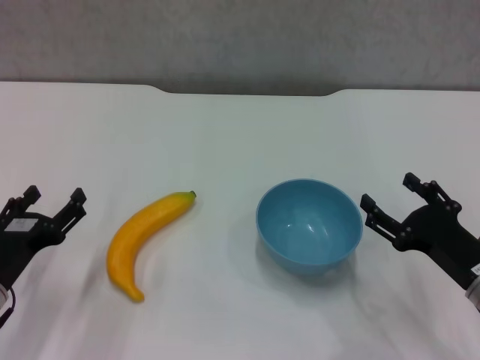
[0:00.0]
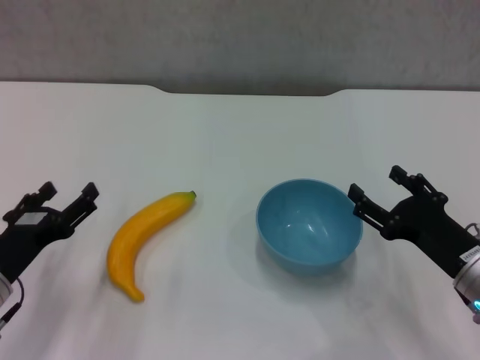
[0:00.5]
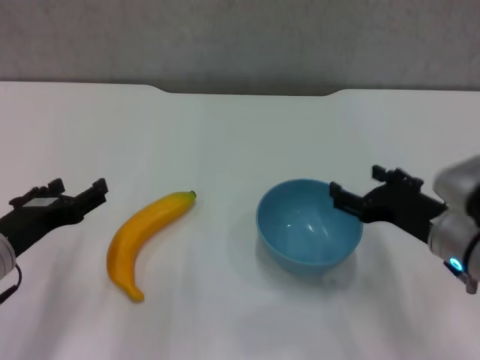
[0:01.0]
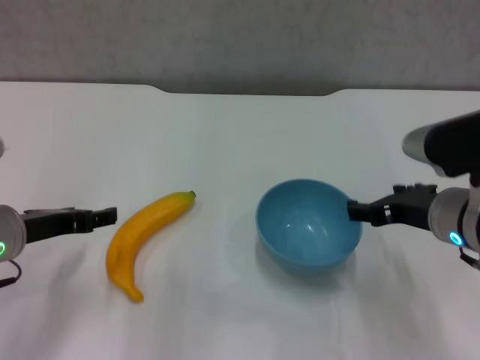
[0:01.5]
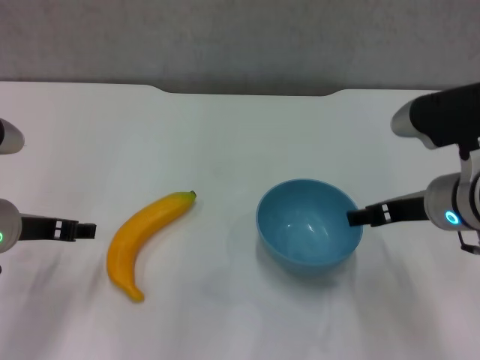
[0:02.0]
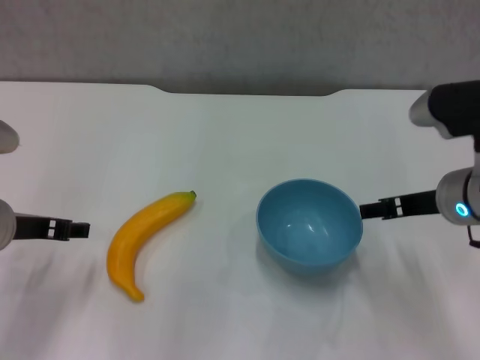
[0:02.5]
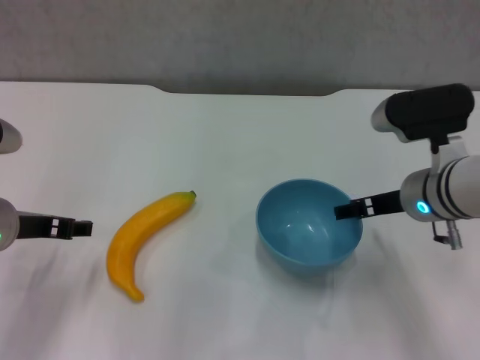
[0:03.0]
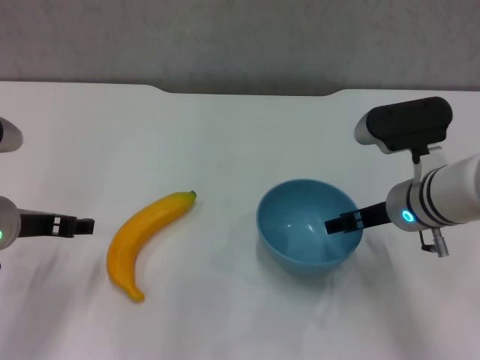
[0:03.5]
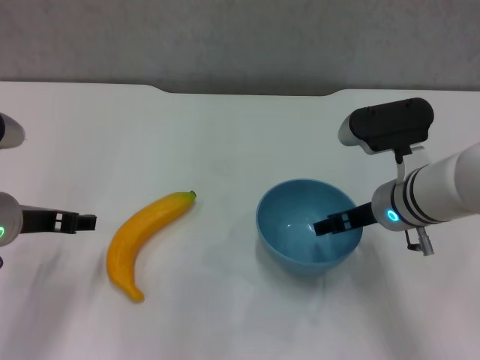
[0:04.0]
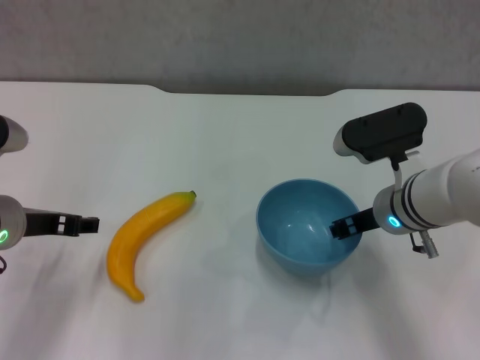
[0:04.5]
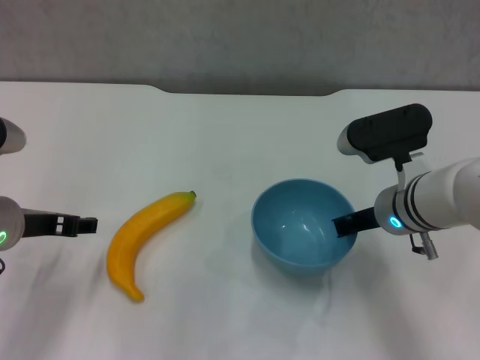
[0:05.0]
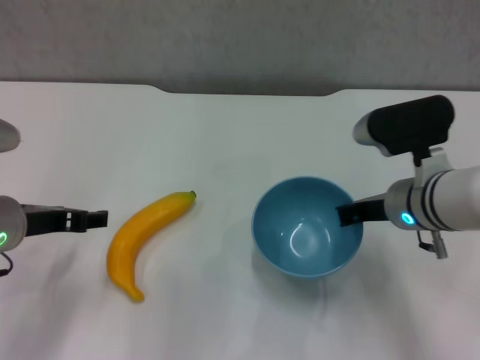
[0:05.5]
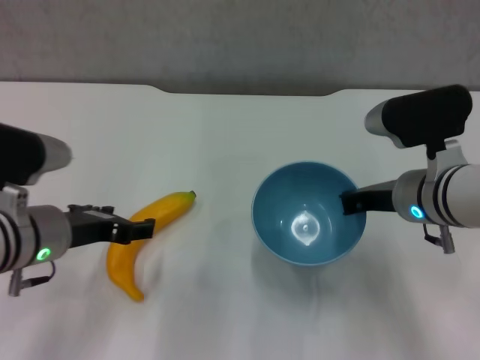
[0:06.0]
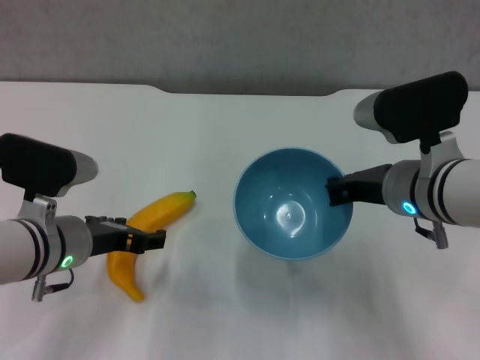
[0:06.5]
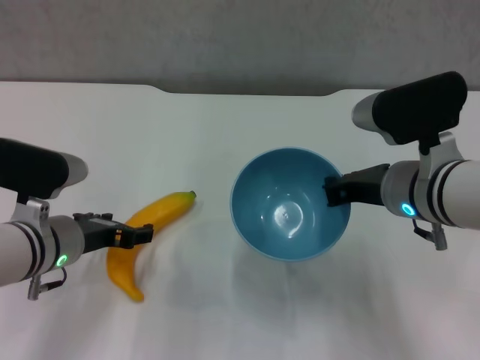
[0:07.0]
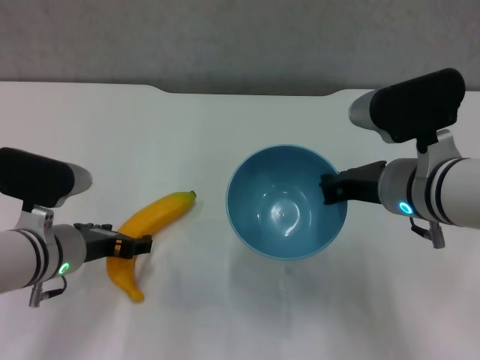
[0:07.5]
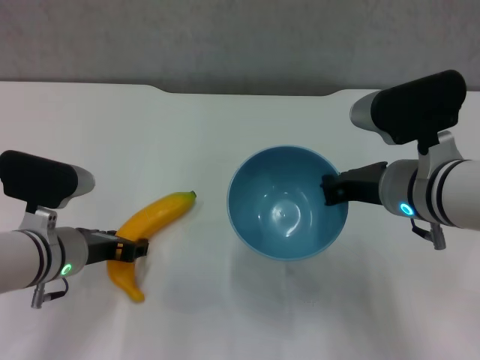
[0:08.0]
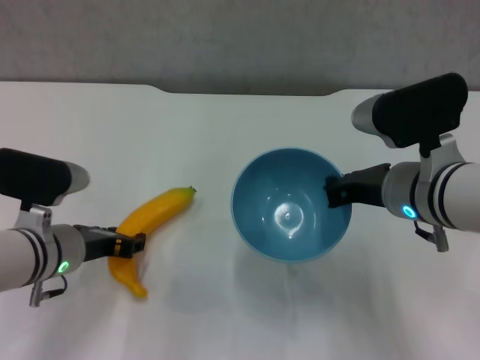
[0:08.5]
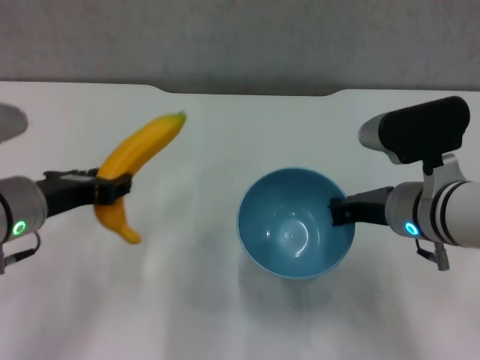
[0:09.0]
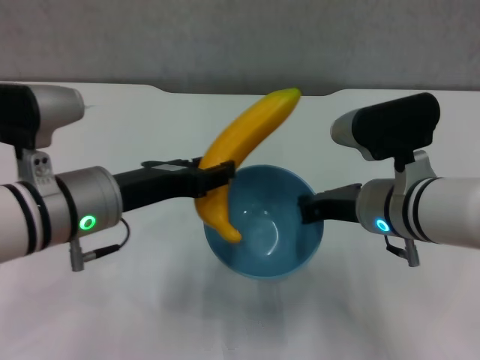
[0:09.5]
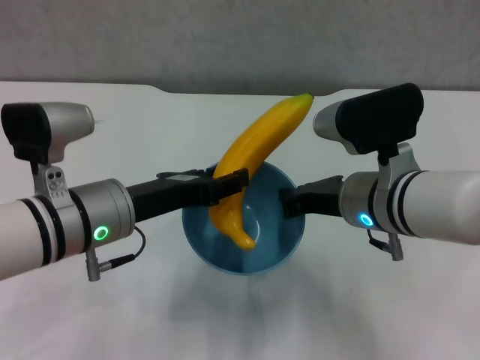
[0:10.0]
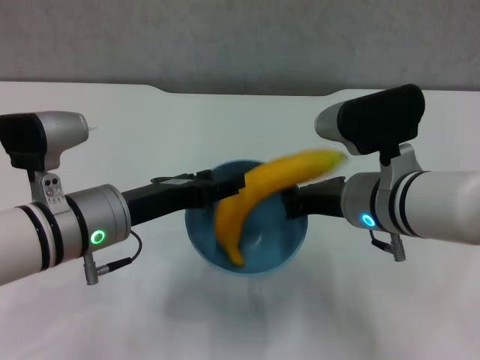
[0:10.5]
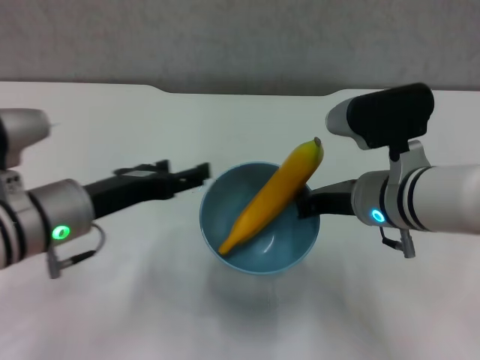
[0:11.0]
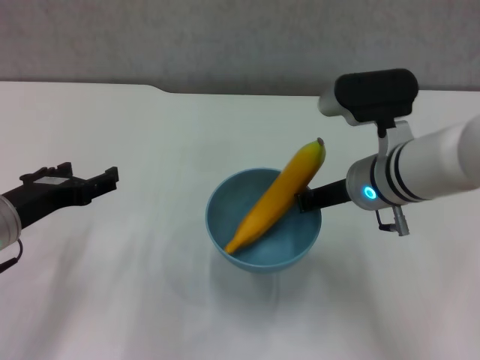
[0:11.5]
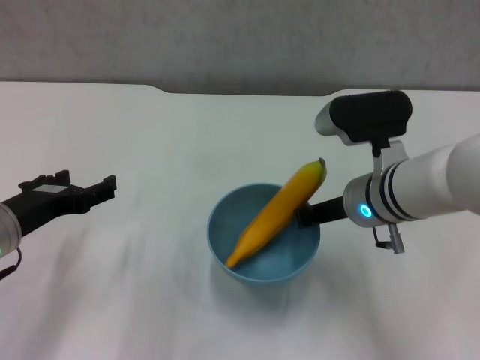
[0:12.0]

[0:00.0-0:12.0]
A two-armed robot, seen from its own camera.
Step, 0:00.0 to 0:05.0: Grasp the blue bowl with right gripper.
Step, 0:05.5 to 0:06.0: Lift the blue bowl with right gripper.
Step, 0:06.5 to 0:08.0: Grasp the banana with left gripper.
Step, 0:08.5 to 0:10.5: Place the banana in the blue bowl with left gripper.
0:00.0 to 0:02.0: The right gripper heads upward, forward and to the left, covering some 15 cm. Meanwhile the left gripper is displaced upward and forward by approximately 10 cm.
0:02.0 to 0:04.0: The right gripper changes place by roughly 5 cm.
0:04.0 to 0:06.0: The right gripper closes up.
0:06.0 to 0:08.0: The left gripper shifts roughly 5 cm downward.
0:08.0 to 0:10.0: The left gripper goes approximately 10 cm upward and to the right, and closes up.
0:10.0 to 0:12.0: The left gripper moves to the left, roughly 10 cm, and opens up.

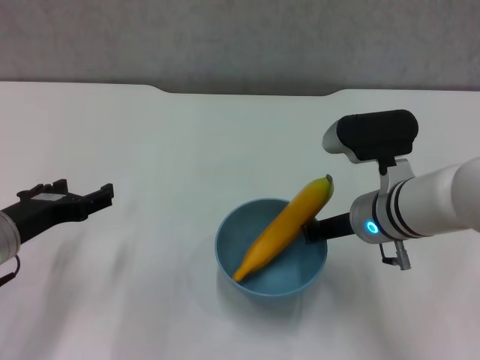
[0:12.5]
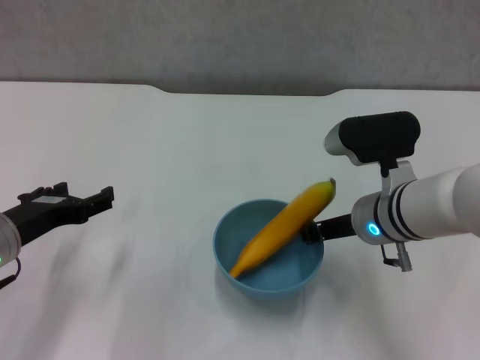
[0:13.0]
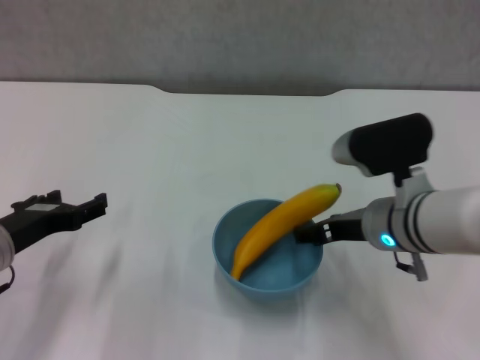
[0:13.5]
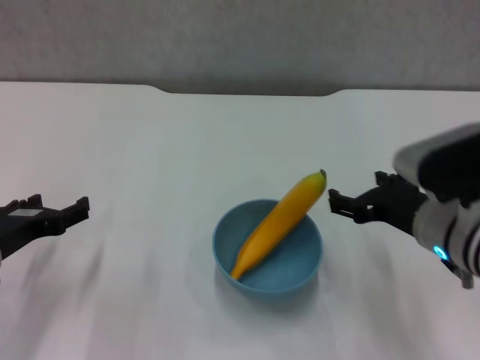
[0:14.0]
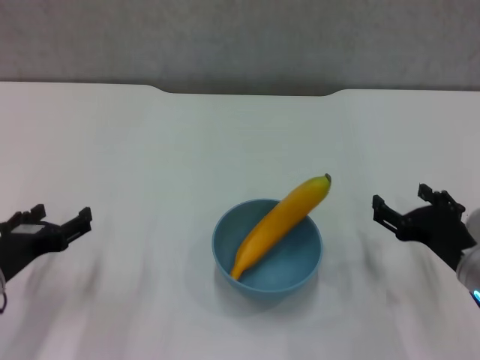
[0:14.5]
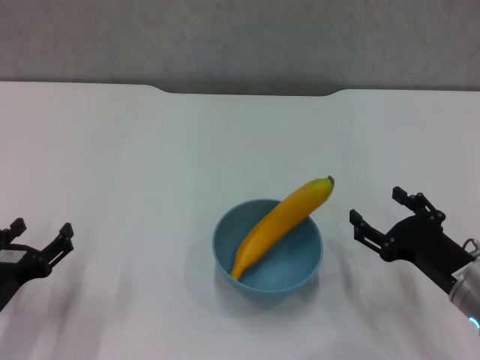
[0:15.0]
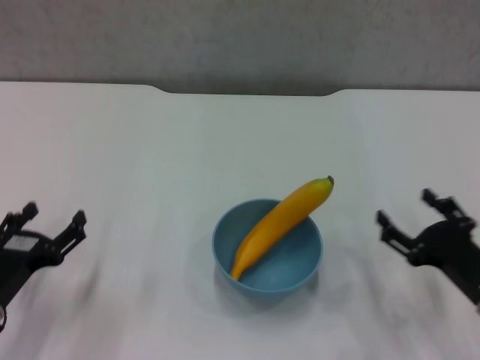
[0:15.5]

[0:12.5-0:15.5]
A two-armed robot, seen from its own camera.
0:12.5 to 0:14.0: The right gripper is displaced backward and to the right by approximately 10 cm, and opens.
0:14.0 to 0:15.5: The right gripper goes some 15 cm downward, to the right and backward; the left gripper moves downward, approximately 5 cm.

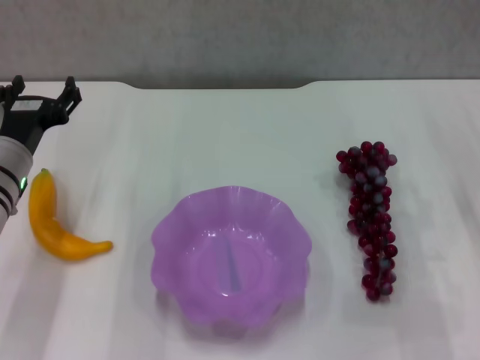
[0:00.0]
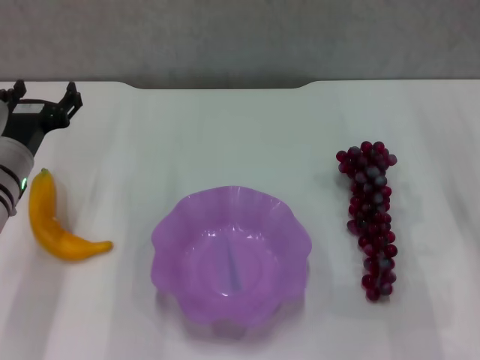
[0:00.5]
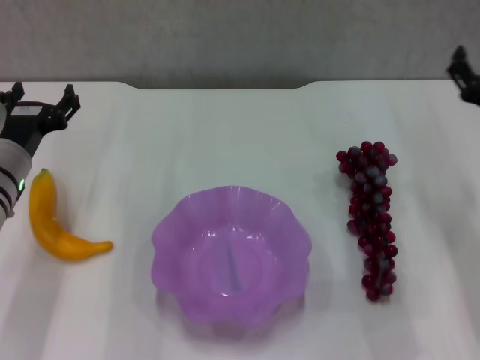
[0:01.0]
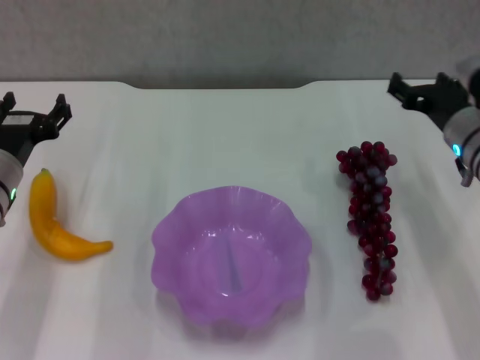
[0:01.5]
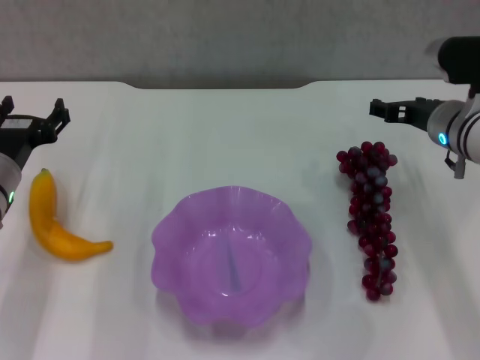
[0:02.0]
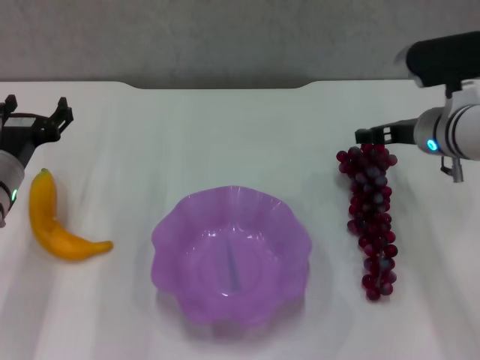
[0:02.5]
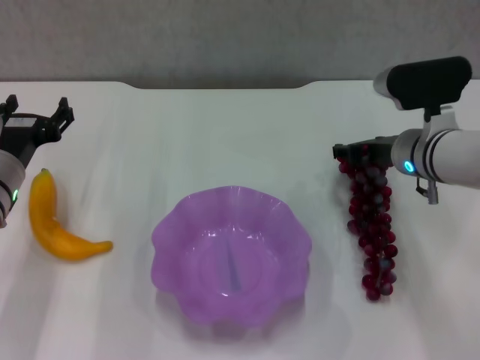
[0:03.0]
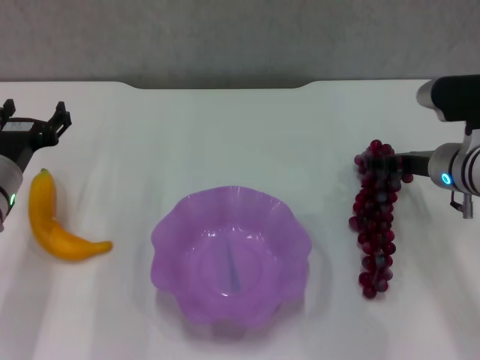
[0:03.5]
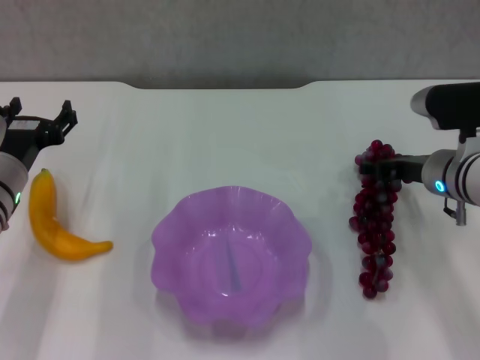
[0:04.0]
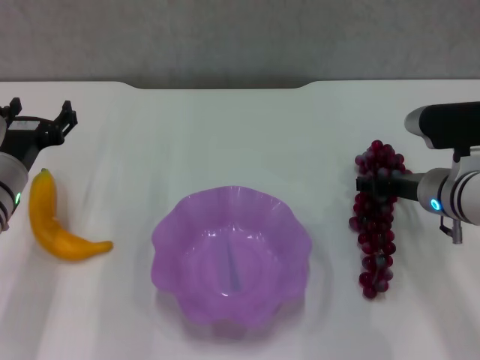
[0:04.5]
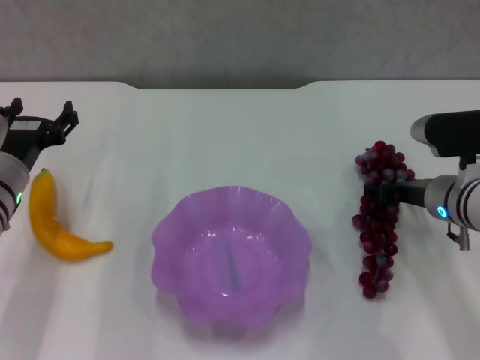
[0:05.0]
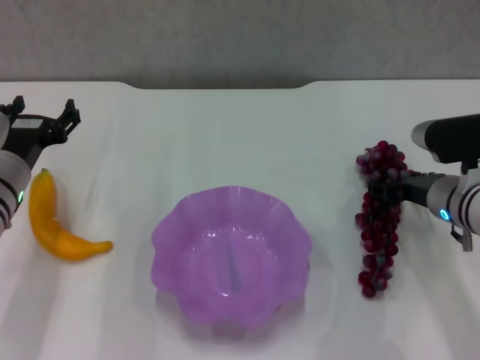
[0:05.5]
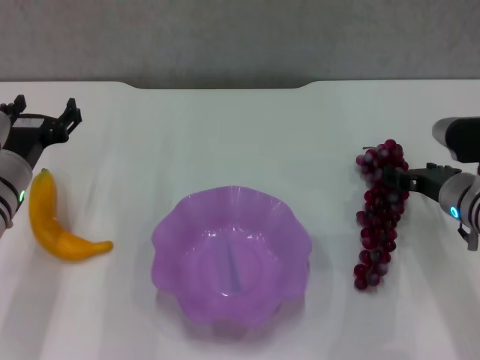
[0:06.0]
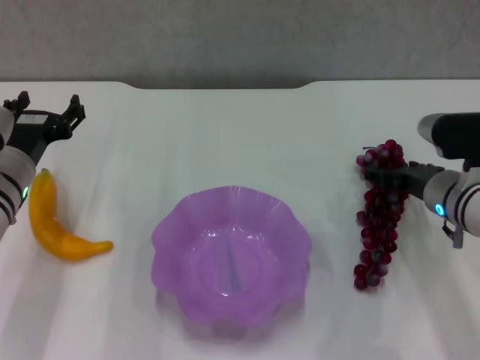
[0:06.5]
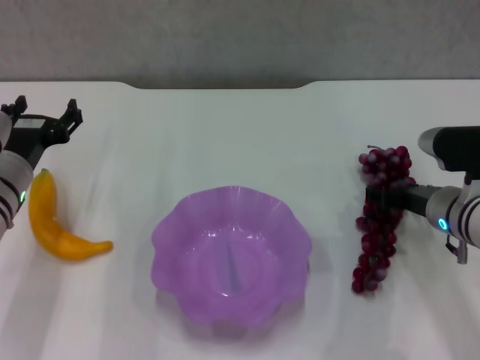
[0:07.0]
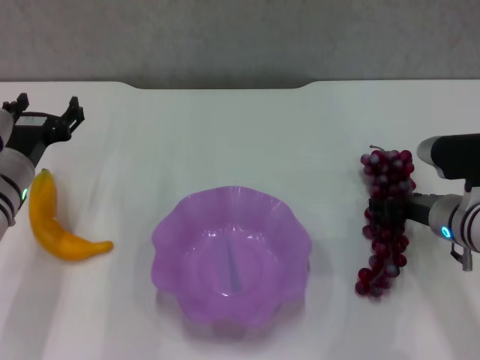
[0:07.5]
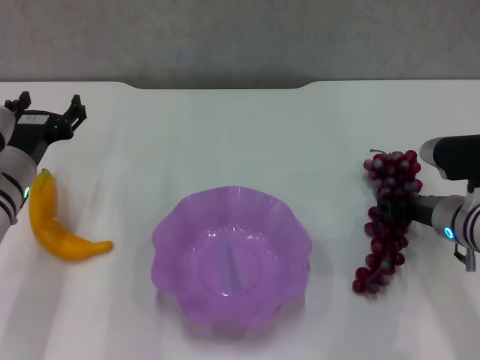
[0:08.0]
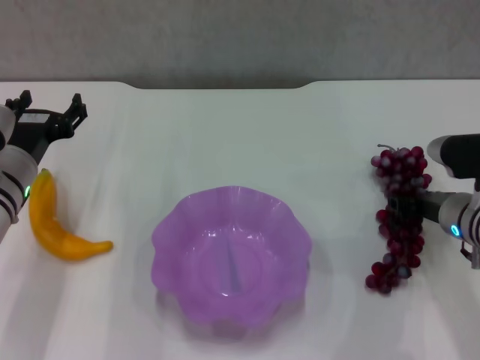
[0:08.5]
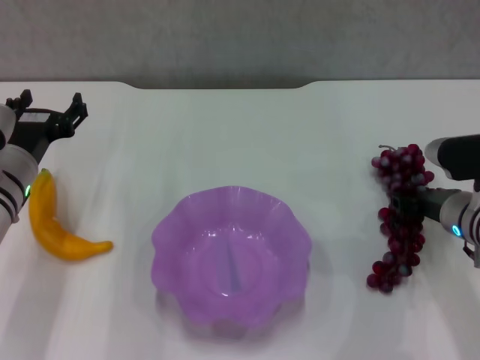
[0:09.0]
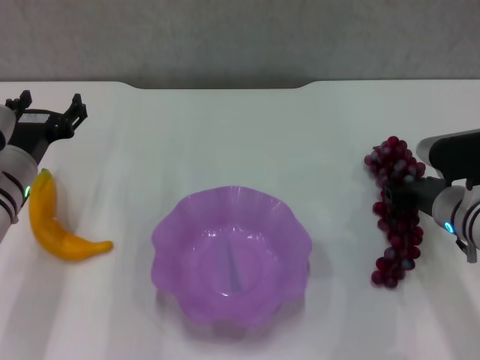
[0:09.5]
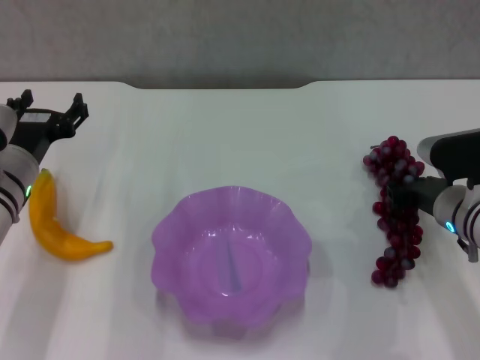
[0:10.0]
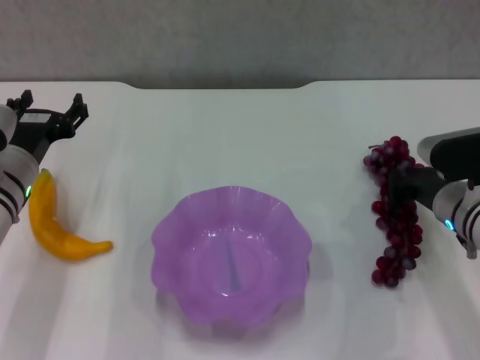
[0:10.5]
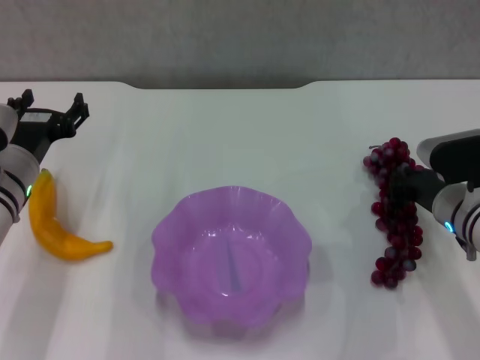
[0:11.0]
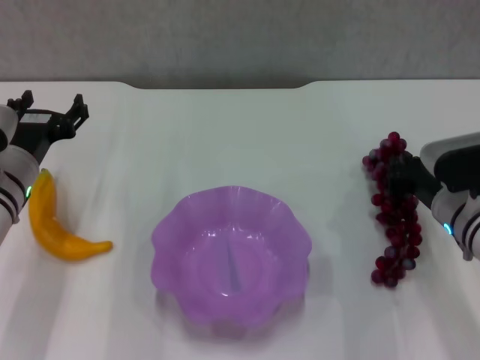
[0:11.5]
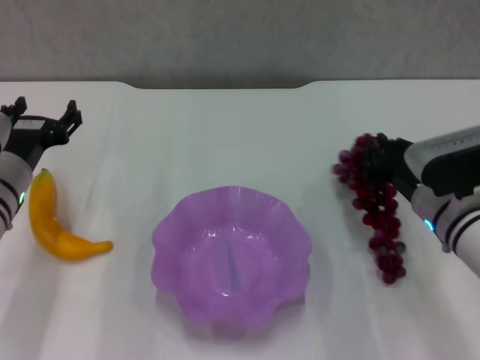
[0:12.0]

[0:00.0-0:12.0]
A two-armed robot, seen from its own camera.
Step, 0:00.0 to 0:11.5: Grasp the grape with right gripper.
0:00.0 to 0:02.0: The right gripper goes roughly 15 cm forward and to the left.
0:02.0 to 0:04.0: The grippers stay close to where they were, moving slightly.
0:04.0 to 0:08.0: The grippers move only a little.
0:08.0 to 0:10.0: The right gripper closes its fingers.
